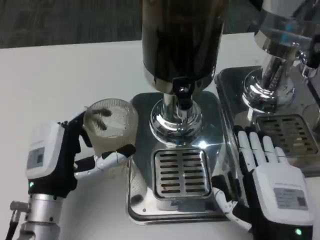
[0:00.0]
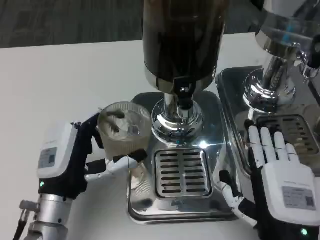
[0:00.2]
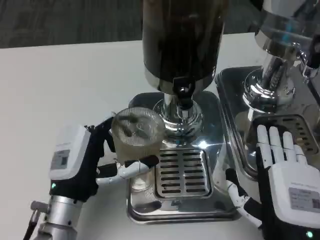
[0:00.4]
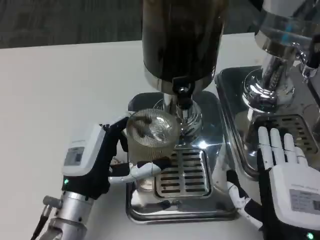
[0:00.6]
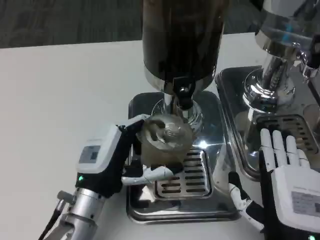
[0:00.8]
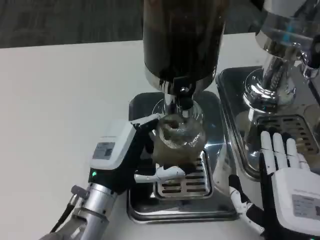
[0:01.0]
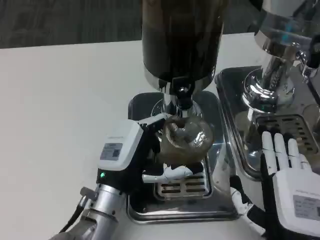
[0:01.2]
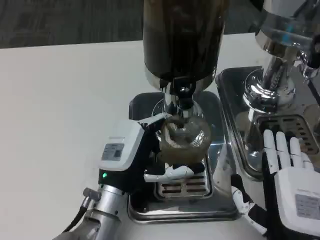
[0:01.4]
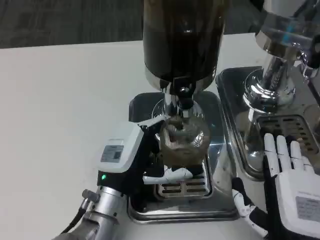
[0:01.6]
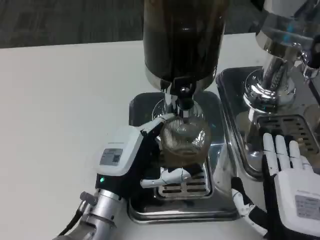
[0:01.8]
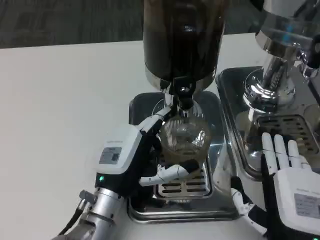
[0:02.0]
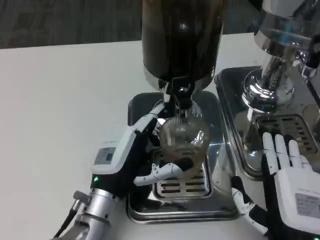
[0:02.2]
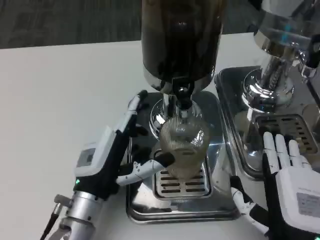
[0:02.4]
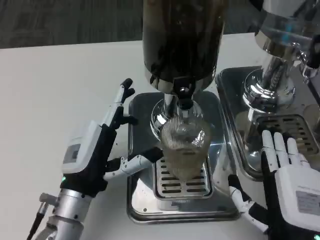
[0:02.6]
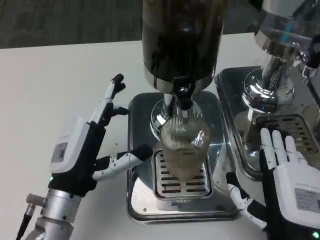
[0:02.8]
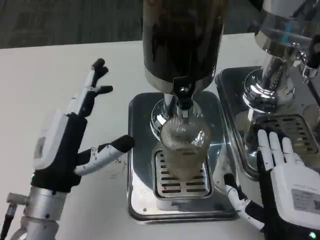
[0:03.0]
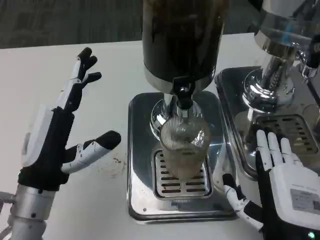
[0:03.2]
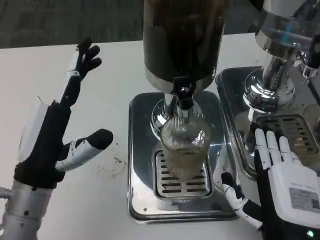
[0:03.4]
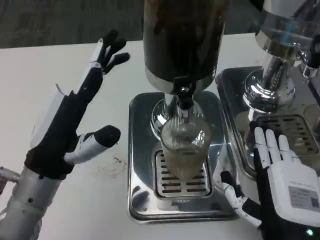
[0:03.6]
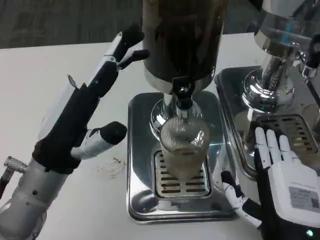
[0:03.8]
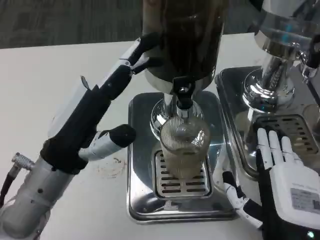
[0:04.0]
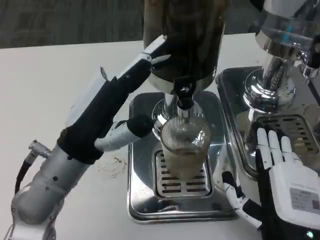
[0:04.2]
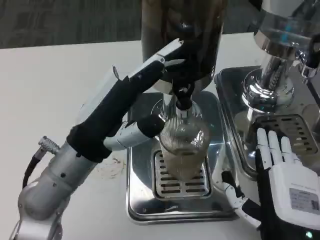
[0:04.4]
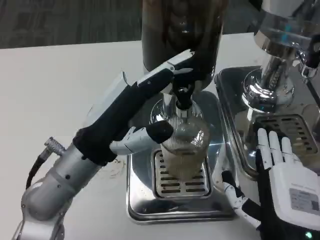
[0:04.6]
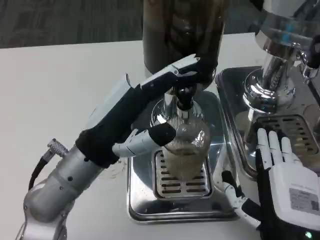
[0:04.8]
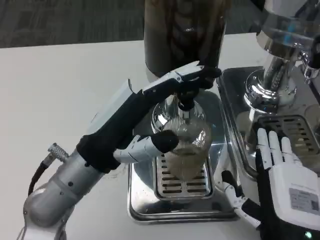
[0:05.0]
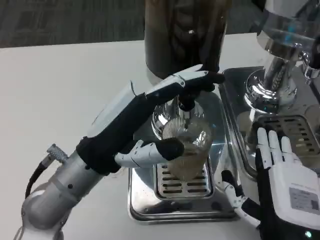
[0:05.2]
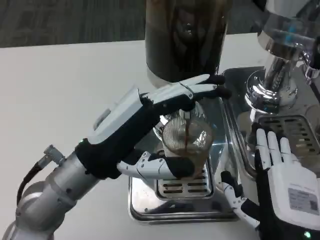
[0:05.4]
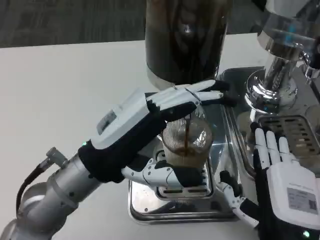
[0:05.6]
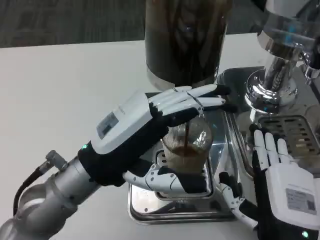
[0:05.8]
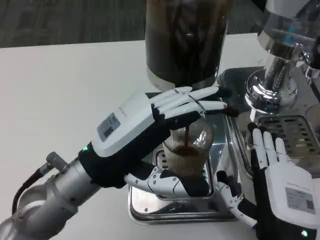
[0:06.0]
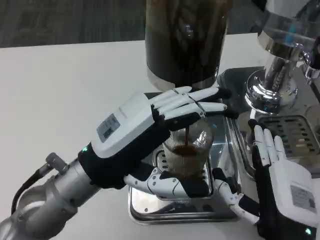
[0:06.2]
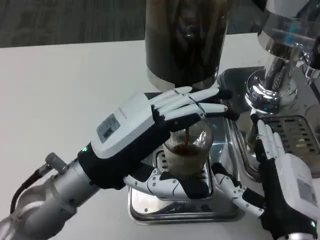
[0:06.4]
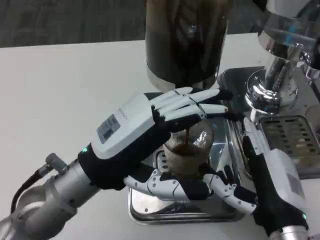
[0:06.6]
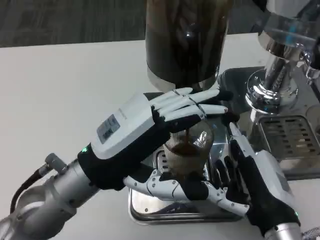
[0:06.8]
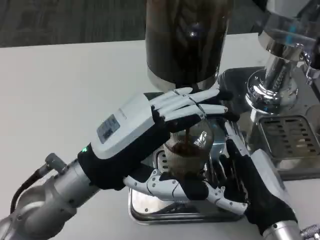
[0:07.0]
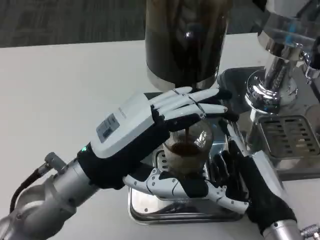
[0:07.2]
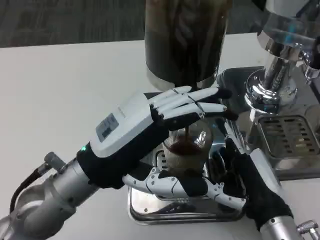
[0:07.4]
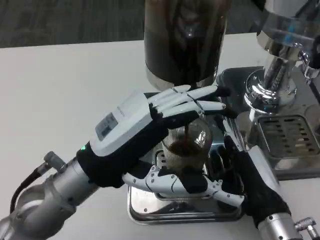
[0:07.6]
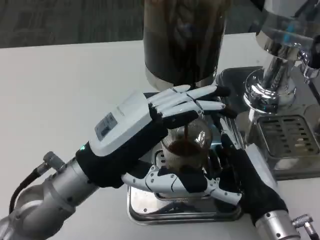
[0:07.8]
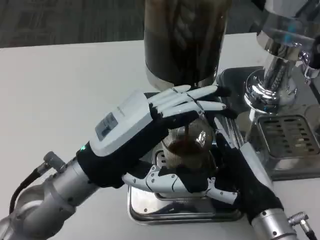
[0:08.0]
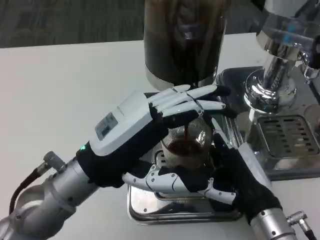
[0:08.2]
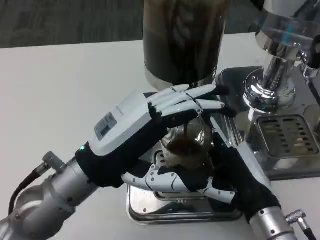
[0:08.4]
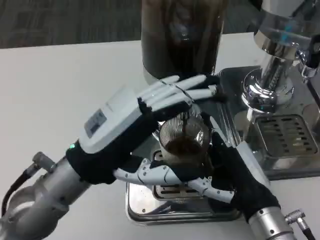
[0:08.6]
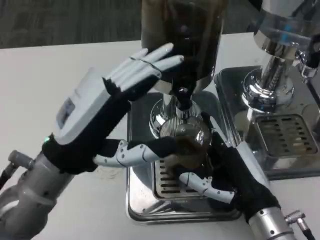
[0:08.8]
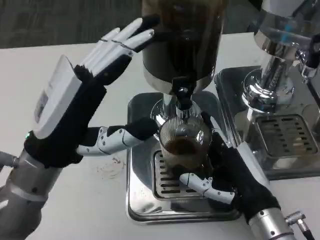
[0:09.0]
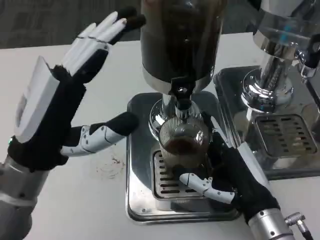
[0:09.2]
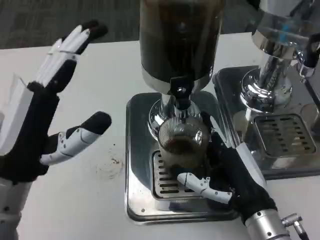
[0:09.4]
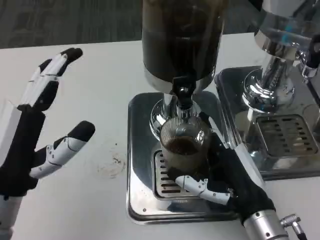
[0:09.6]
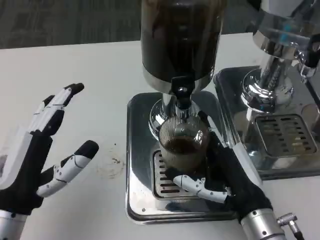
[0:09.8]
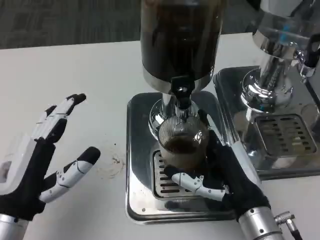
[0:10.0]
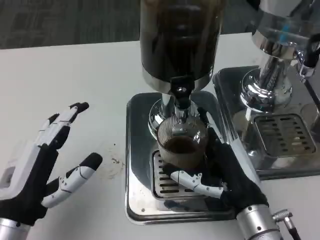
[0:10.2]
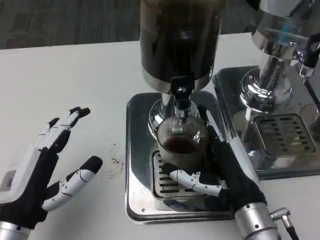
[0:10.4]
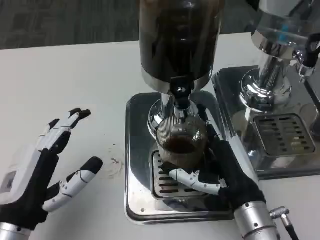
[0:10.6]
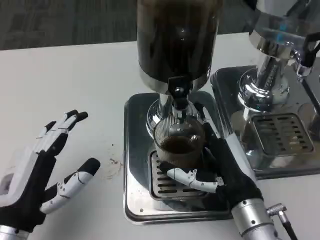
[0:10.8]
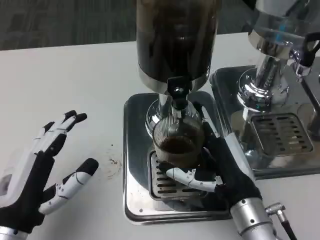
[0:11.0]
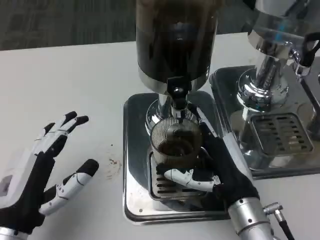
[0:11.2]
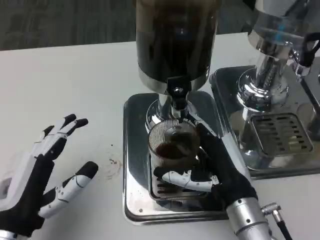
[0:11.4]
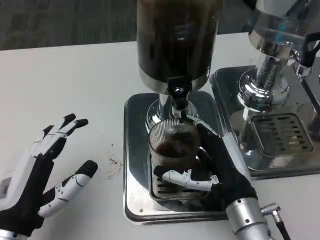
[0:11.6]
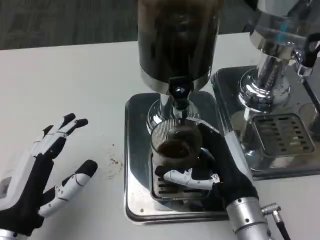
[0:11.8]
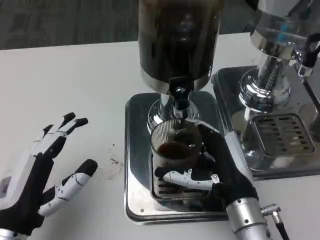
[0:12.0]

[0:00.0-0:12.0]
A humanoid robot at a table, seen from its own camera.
Task of the whole recording: Grasp the cup under the faucet to collect the drink, then remove the cup.
0:00.0 to 0:01.6: The left hand moves to the right, approximately 10 cm.
0:01.6 to 0:03.0: The left hand is displaced to the left and upward by some 10 cm.
0:03.0 to 0:04.4: The left hand heads upward, covering about 5 cm.
0:09.0 to 0:10.4: The left hand shifts some 10 cm downward and backward.
0:10.4 to 0:12.0: There are only small adjustments of the hands.

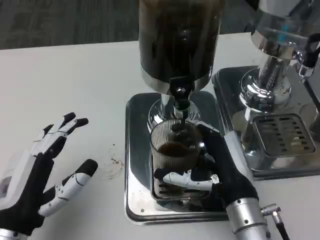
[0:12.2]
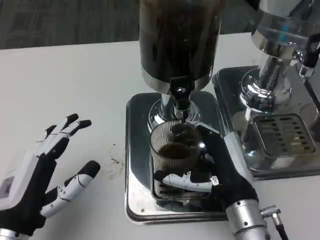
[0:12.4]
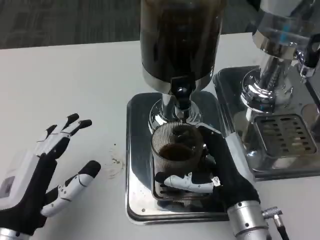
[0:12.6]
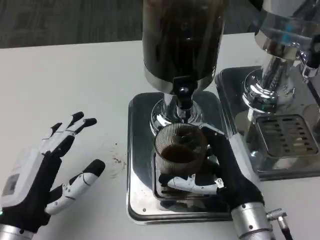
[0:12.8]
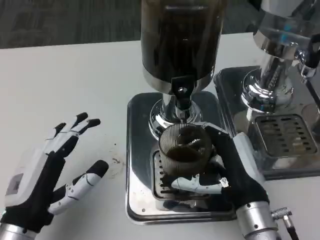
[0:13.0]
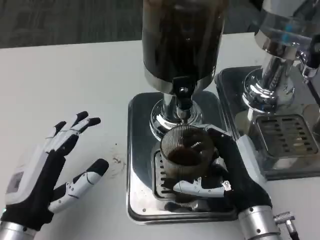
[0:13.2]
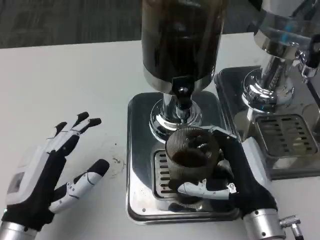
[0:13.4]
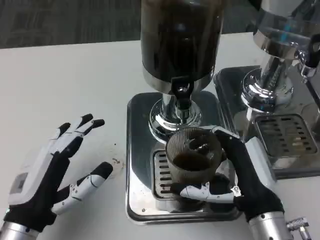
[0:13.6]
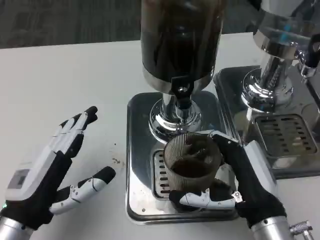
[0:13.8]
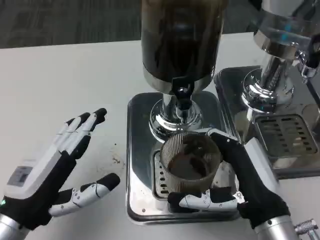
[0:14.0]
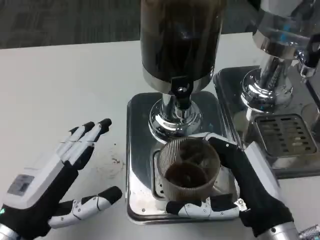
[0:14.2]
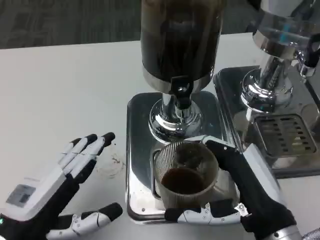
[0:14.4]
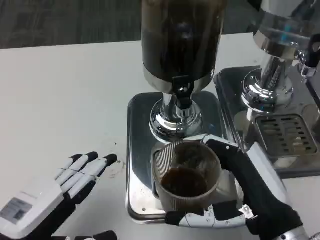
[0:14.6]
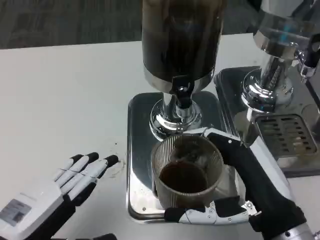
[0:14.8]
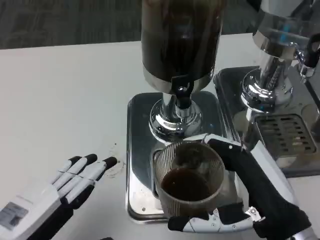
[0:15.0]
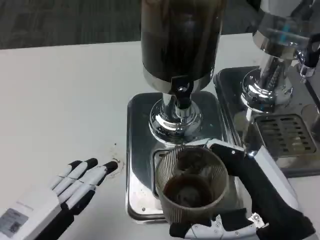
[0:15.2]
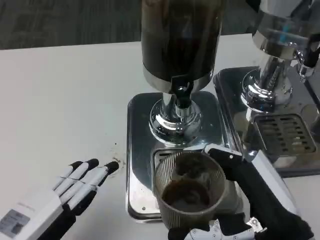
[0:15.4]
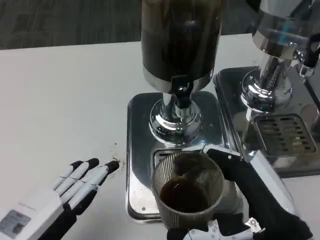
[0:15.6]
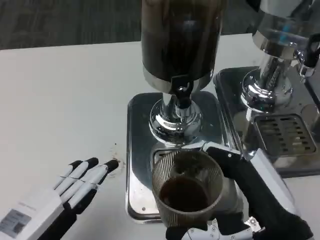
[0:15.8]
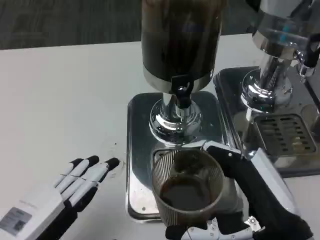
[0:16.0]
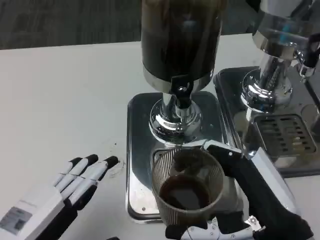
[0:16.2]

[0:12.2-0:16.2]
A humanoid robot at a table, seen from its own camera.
Task of the whole recording: Grasp the cup under the faucet to collect the drink, then remove the cup.
0:13.6 to 0:14.8: The left hand moves approximately 5 cm. Meanwhile the right hand is displaced upward by about 5 cm.
0:14.8 to 0:16.2: The hands stay close to where they were, moving slightly.

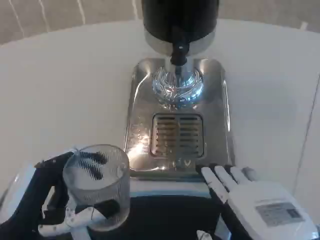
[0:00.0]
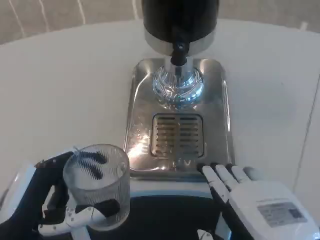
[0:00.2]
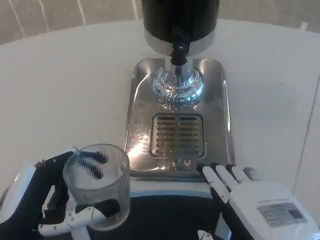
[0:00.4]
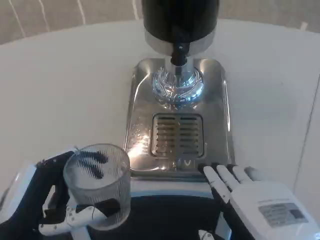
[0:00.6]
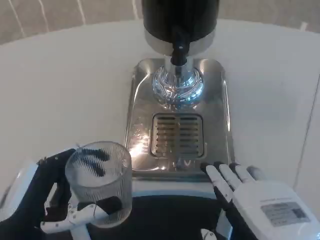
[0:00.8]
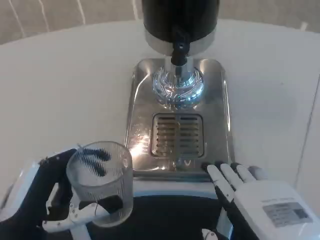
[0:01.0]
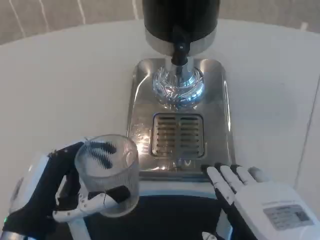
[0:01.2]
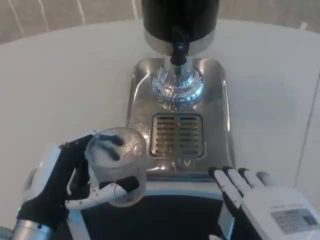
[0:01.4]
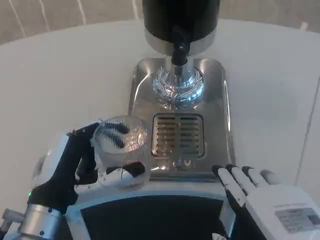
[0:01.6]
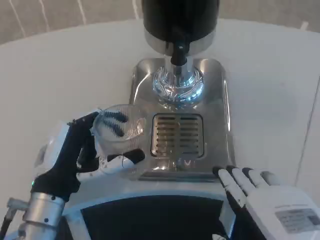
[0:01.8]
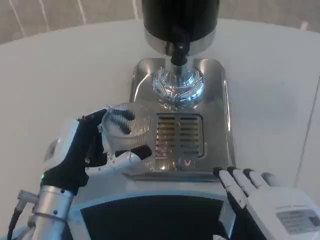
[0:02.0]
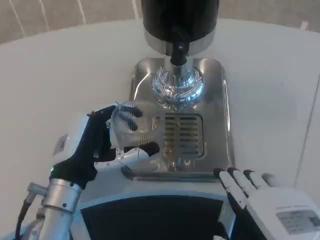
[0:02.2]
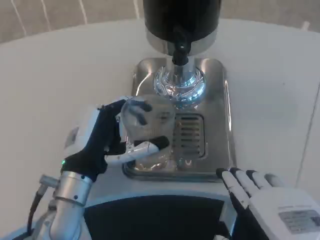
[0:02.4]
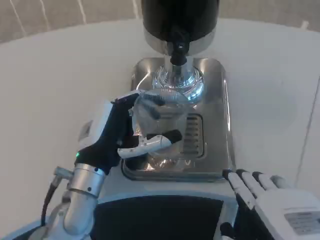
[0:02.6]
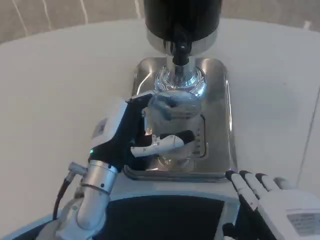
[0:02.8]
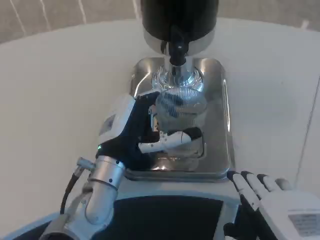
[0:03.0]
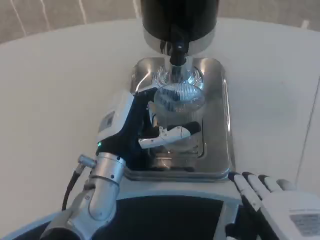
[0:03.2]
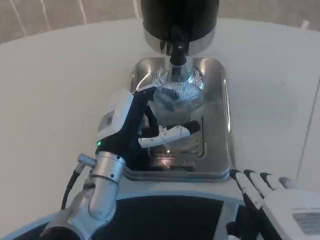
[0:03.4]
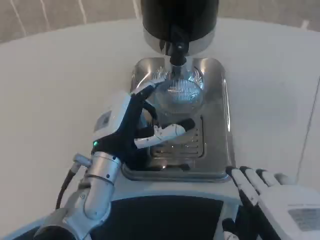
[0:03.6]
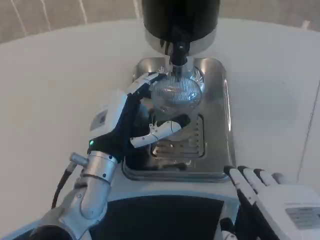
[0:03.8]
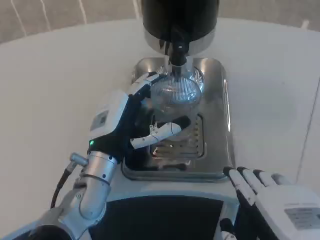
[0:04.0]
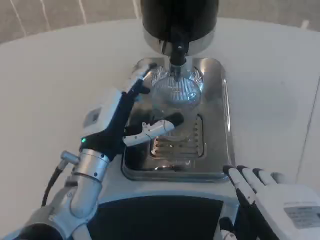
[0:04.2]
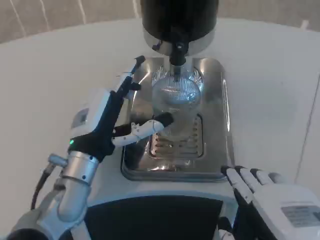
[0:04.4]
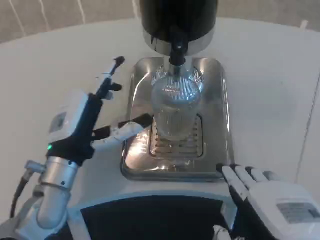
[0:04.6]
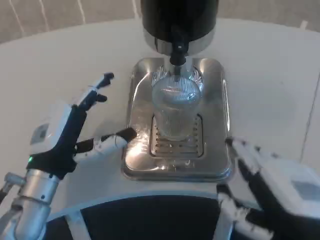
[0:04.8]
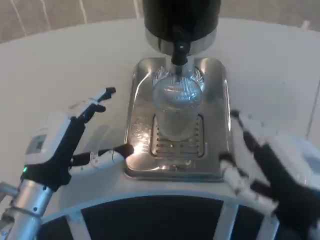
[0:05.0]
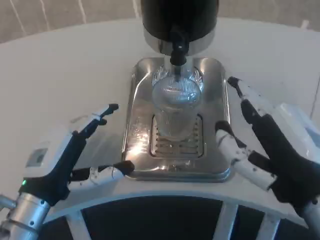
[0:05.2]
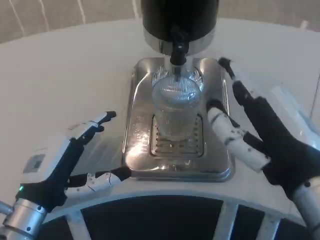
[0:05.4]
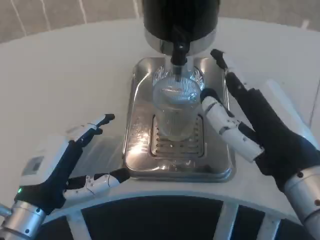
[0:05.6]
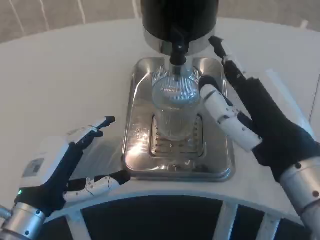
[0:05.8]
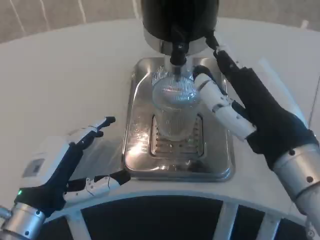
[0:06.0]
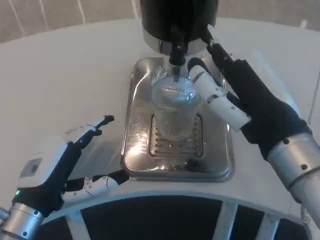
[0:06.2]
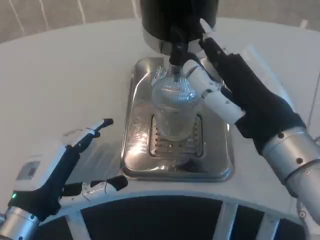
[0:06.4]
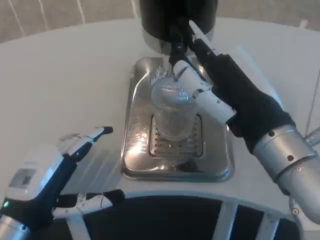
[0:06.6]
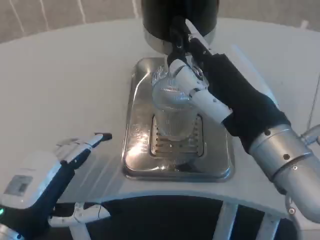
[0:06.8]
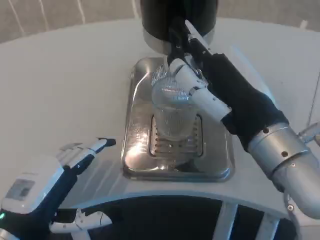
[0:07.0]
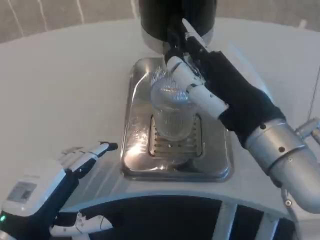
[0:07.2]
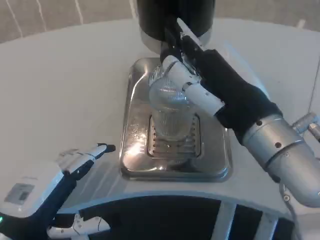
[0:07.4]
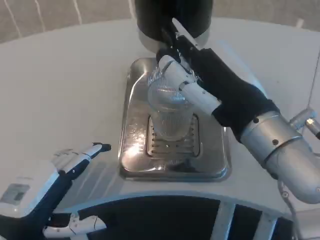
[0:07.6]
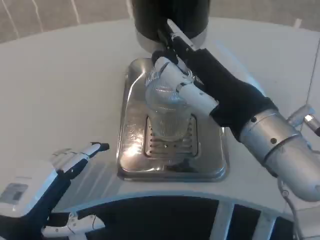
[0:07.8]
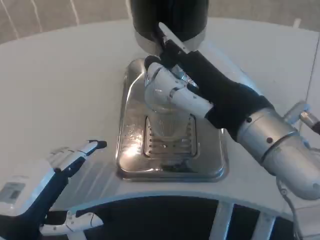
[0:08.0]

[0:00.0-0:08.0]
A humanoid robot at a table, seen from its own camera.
Task of the whole recording: Grasp the cup under the faucet to collect the drink, then remove the cup.
0:00.0 to 0:01.6: The left hand shifts approximately 5 cm forward.
0:01.6 to 0:03.2: The left hand shifts approximately 10 cm to the right and forward.
0:03.2 to 0:04.8: The left hand goes approximately 10 cm to the left.
0:04.8 to 0:06.4: The left hand moves about 5 cm. The right hand travels forward and upward by approximately 10 cm.
